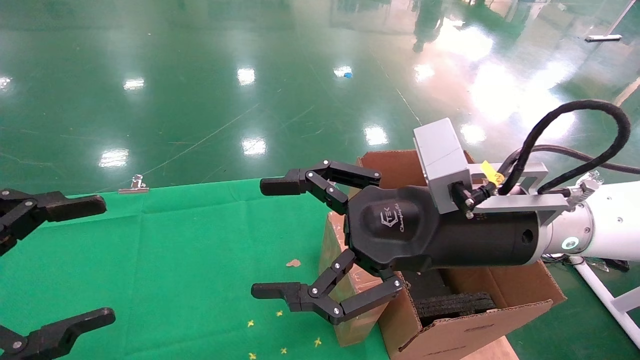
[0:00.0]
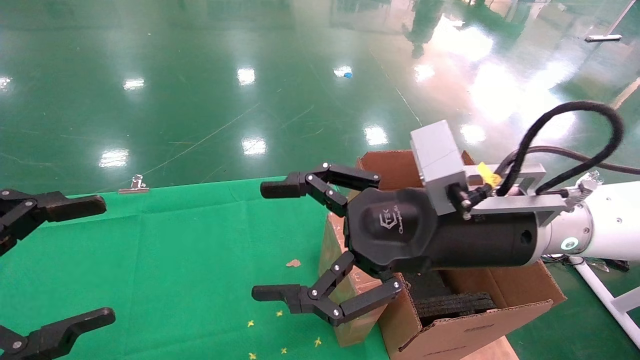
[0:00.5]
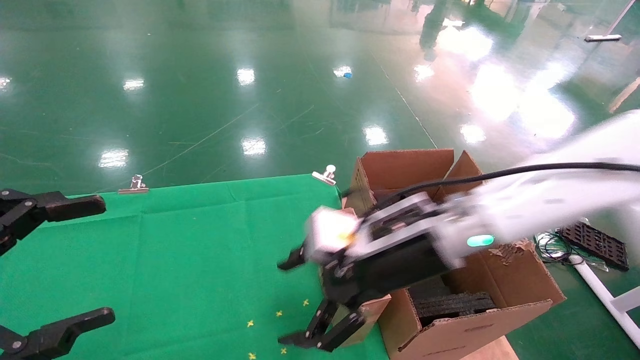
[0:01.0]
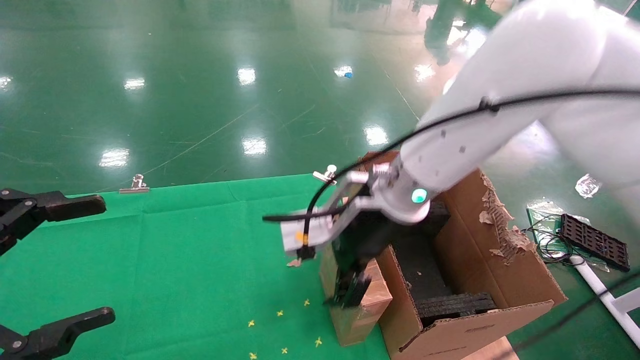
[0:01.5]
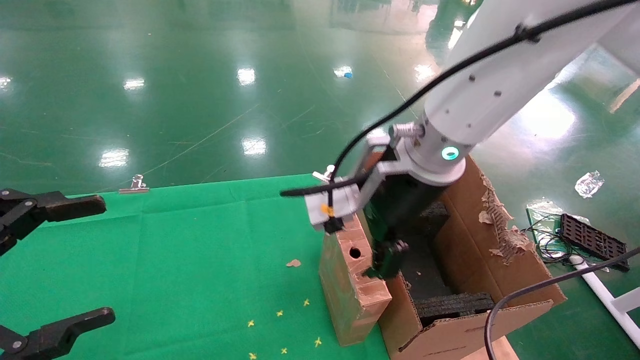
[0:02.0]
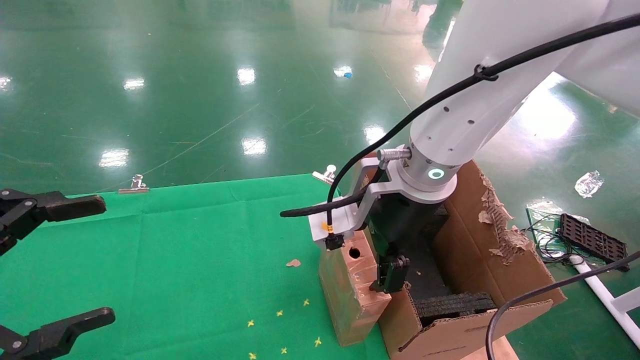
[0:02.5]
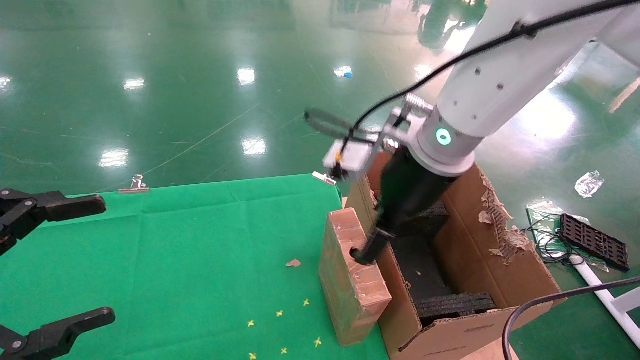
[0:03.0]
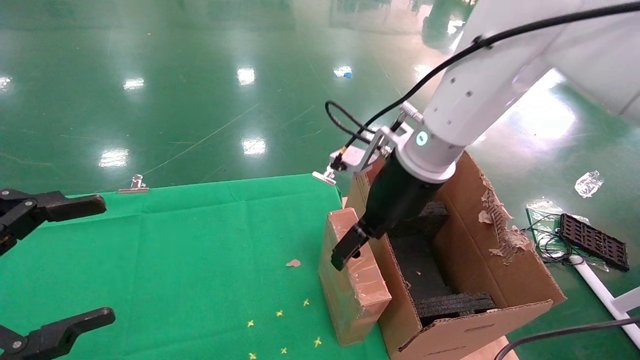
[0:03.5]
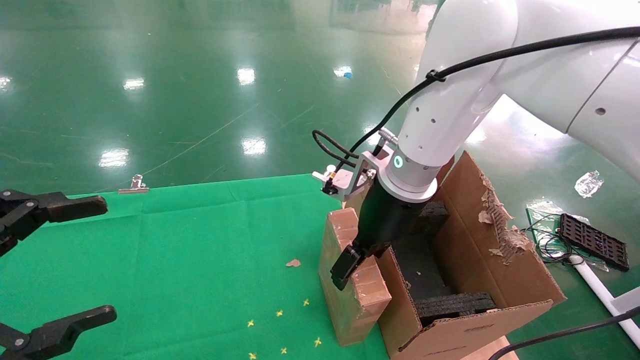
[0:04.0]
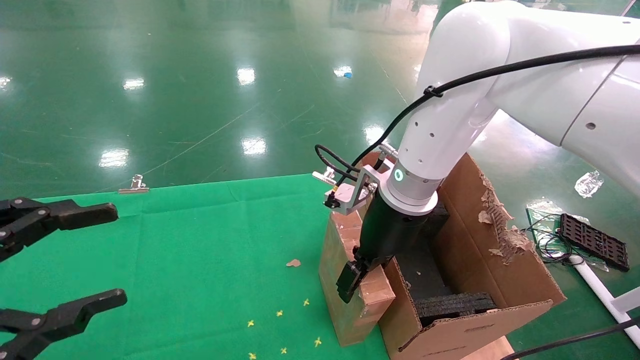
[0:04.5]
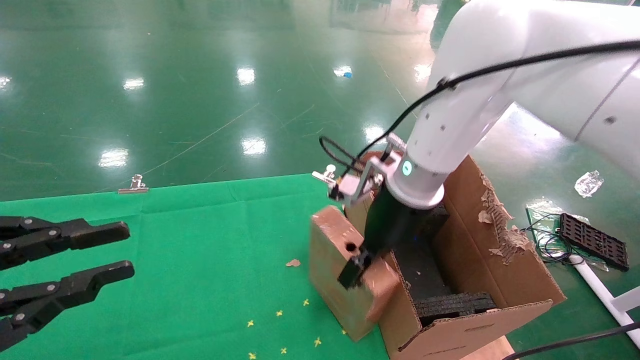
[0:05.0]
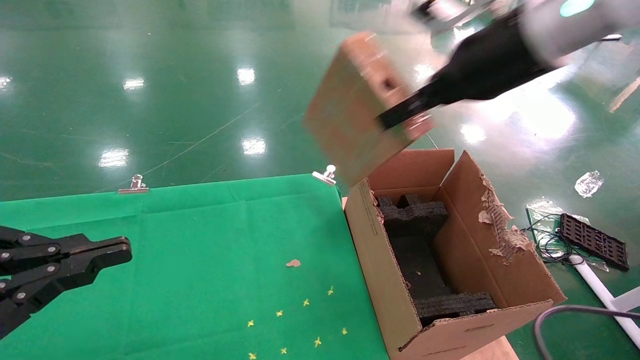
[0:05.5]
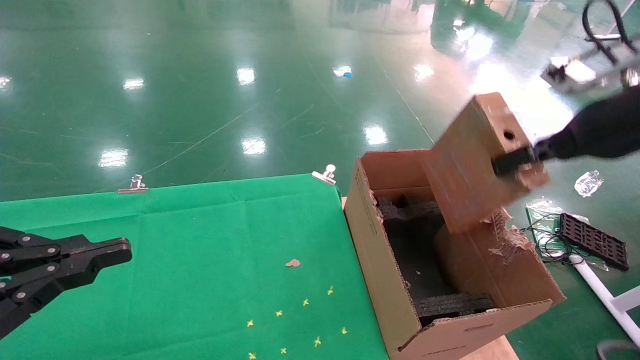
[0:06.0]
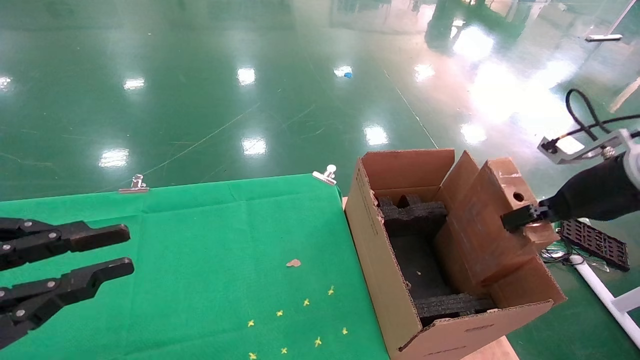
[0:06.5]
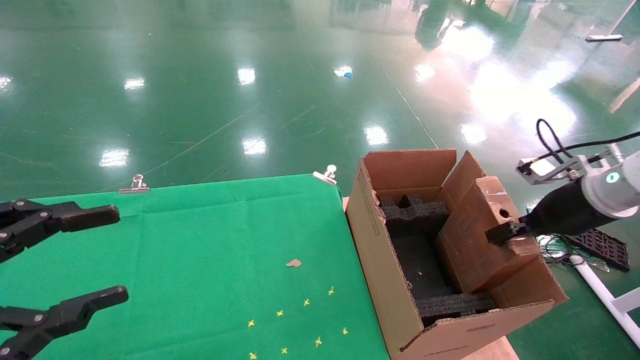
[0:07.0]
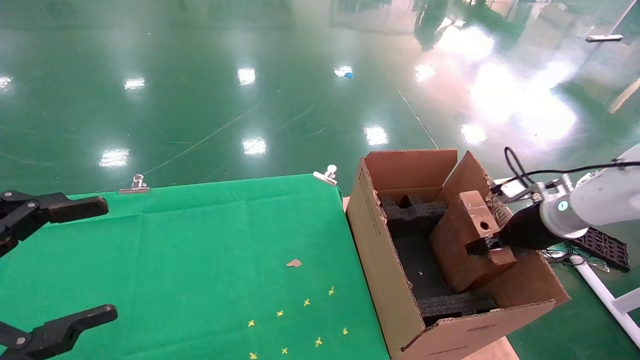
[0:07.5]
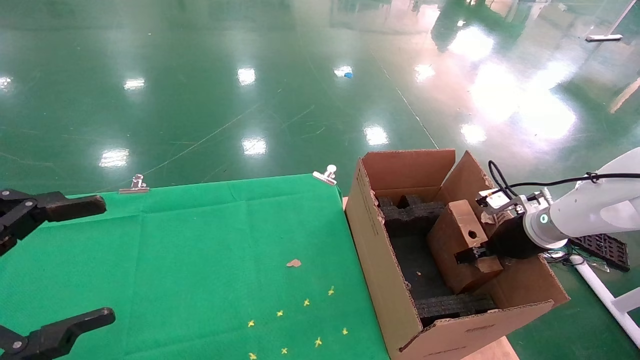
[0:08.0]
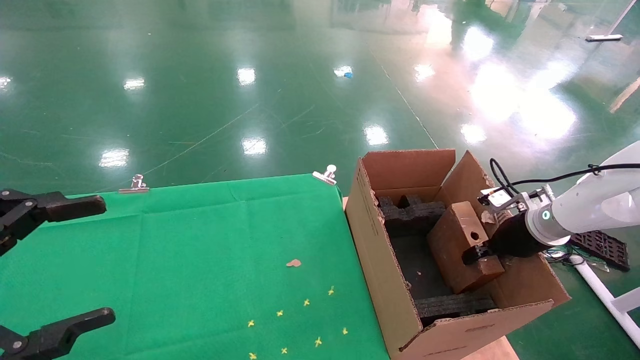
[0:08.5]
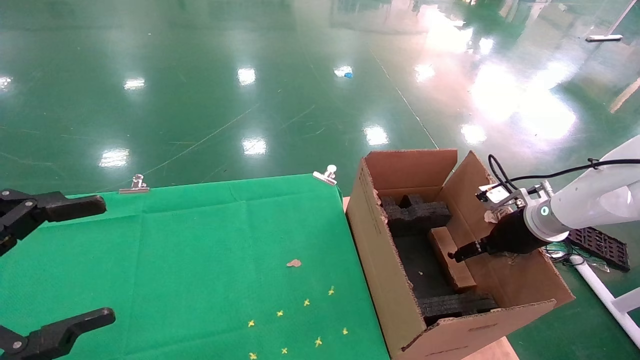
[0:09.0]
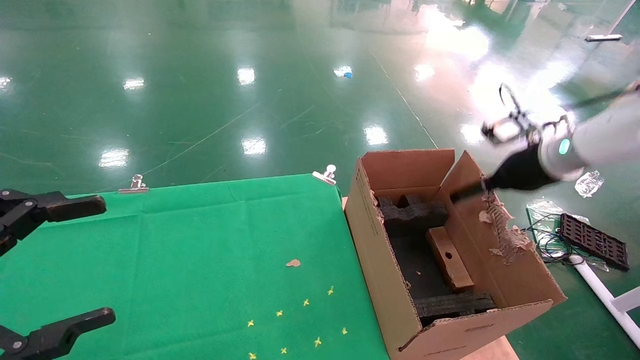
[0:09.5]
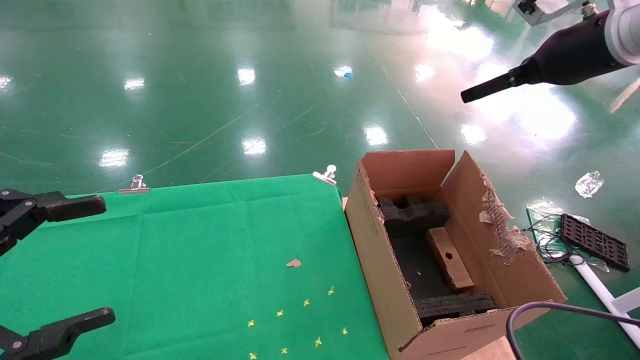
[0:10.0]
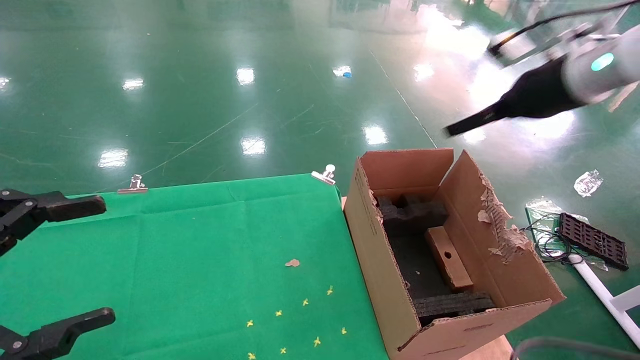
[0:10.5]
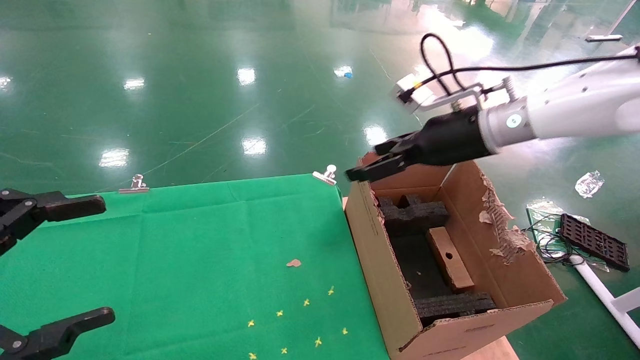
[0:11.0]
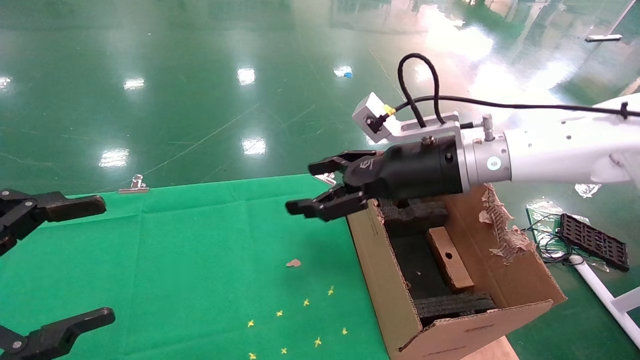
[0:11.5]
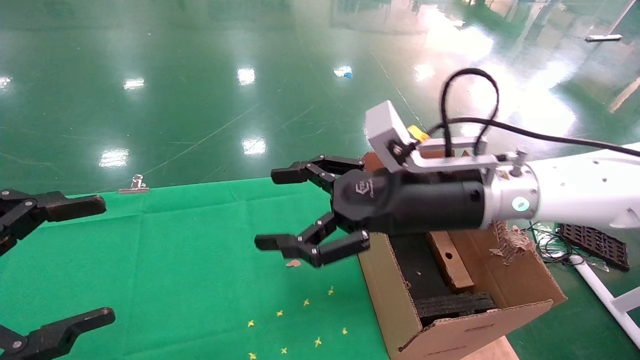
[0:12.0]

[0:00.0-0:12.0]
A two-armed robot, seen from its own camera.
Task of the whole recording: using a robotic arm to pick up a cardboard box and palace it the carton.
Step, 0:01.0 to 0:04.5: Pick up the mouse and the power cord paper box.
Step, 0:05.0 to 0:08.5: Place the mouse and the power cord paper box into the container.
0:00.0 to 0:02.0: The right gripper heads forward and to the left, covering roughly 10 cm.
0:02.0 to 0:04.0: The right gripper is displaced forward by approximately 5 cm.
0:04.0 to 0:06.0: The right gripper goes some 25 cm to the right, and closes. Meanwhile the left gripper closes its fingers.
0:06.0 to 0:08.0: The right gripper heads downward and forward, covering approximately 25 cm. The left gripper opens its fingers.
0:08.0 to 0:10.0: The right gripper travels upward by roughly 25 cm, and opens its fingers.
0:10.0 to 0:12.0: The right gripper goes approximately 25 cm to the left and downward.

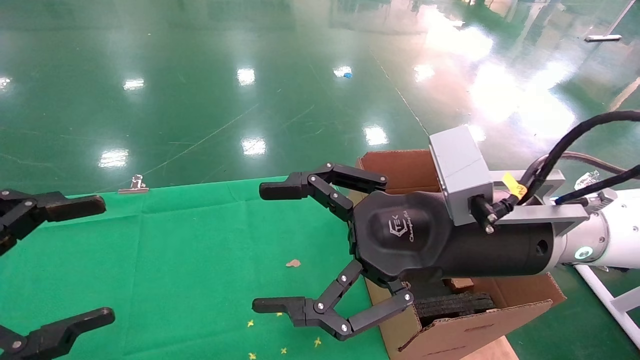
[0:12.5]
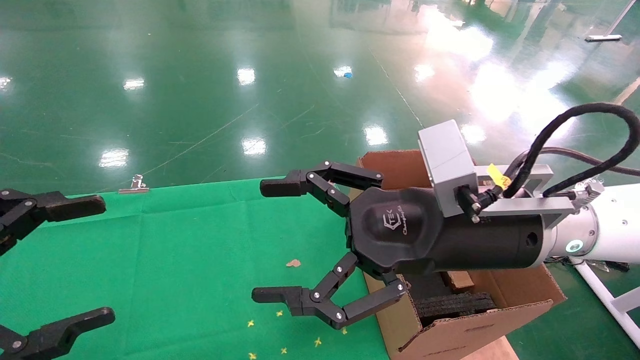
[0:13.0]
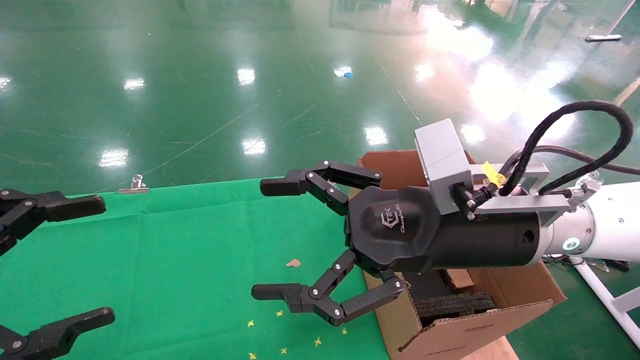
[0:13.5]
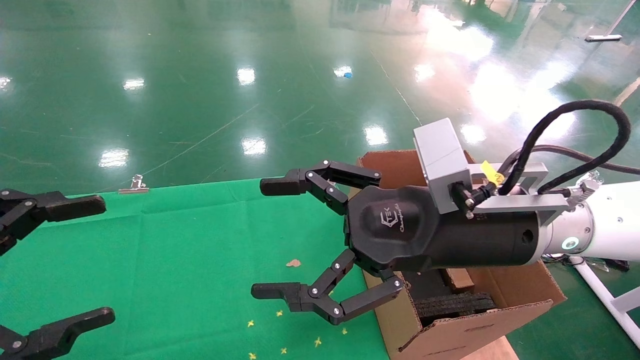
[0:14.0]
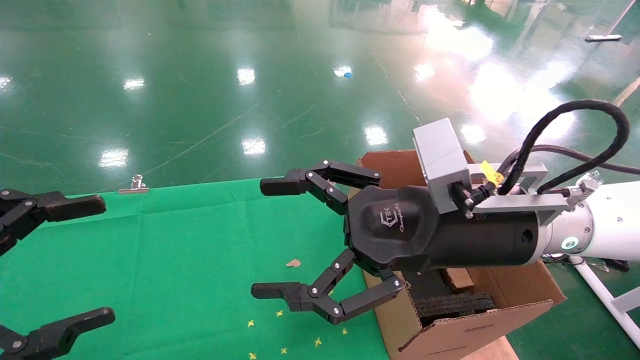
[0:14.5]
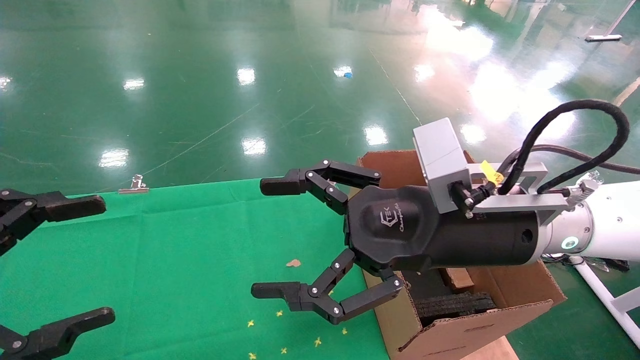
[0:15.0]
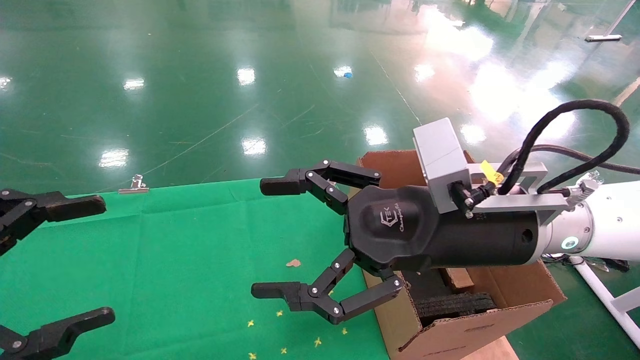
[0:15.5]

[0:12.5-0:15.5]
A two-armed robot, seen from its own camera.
Task of the whole recording: using a robotic arm to pick up a cardboard box and palace it the carton.
0:12.5 to 0:15.5: Neither gripper changes place.
